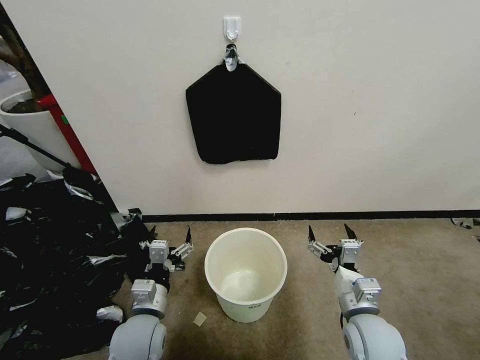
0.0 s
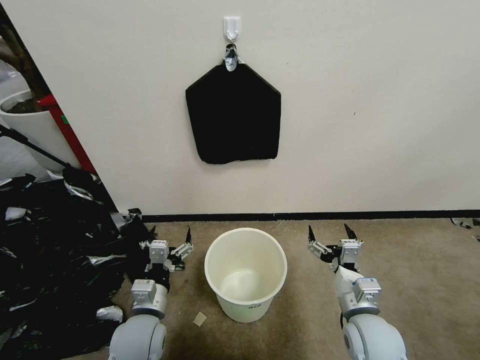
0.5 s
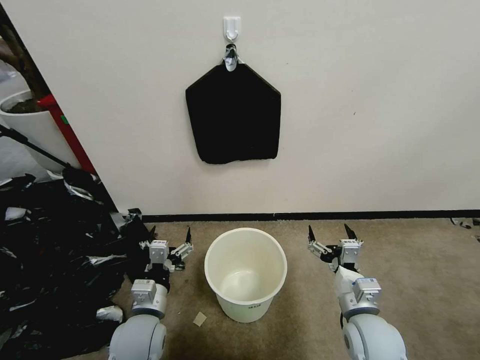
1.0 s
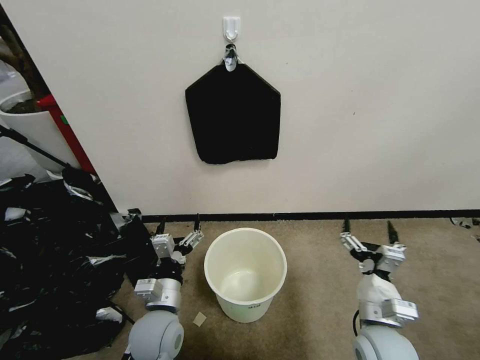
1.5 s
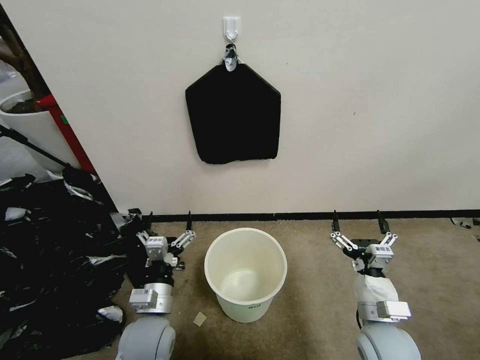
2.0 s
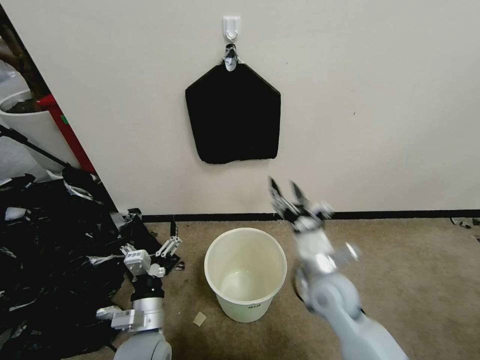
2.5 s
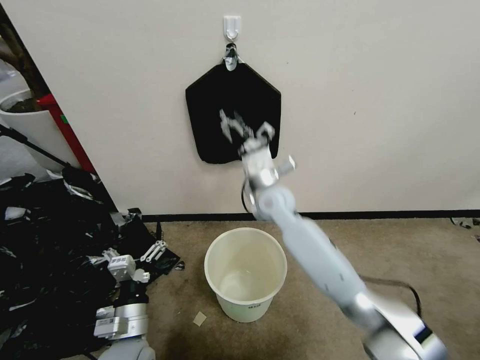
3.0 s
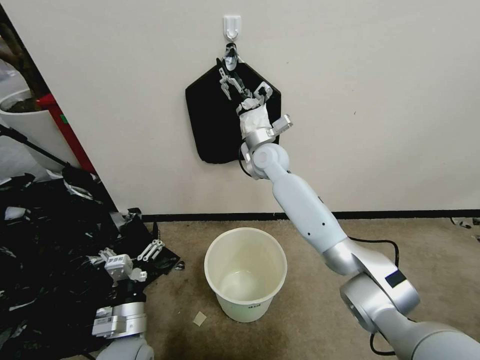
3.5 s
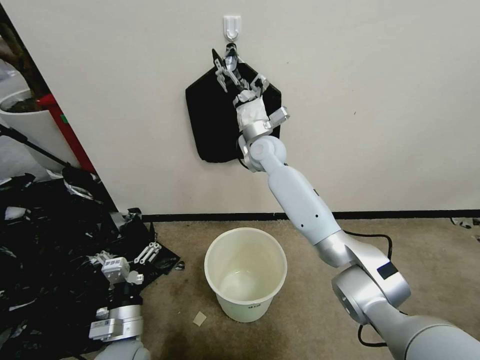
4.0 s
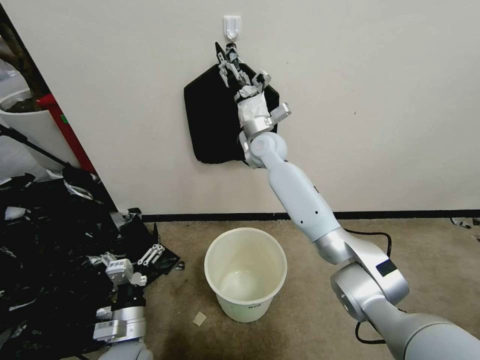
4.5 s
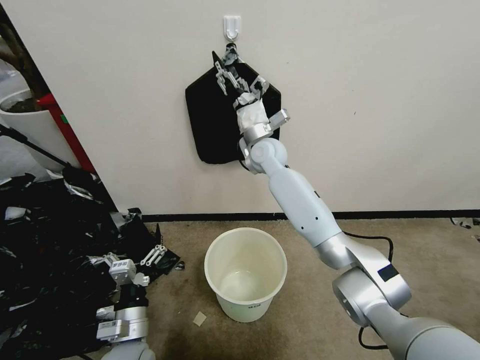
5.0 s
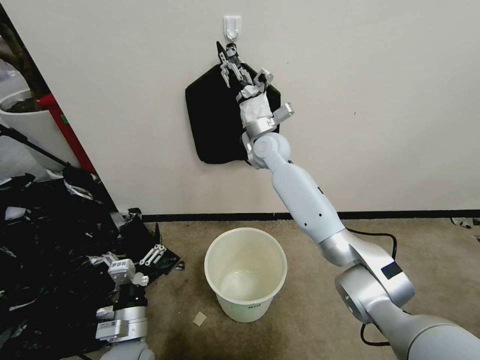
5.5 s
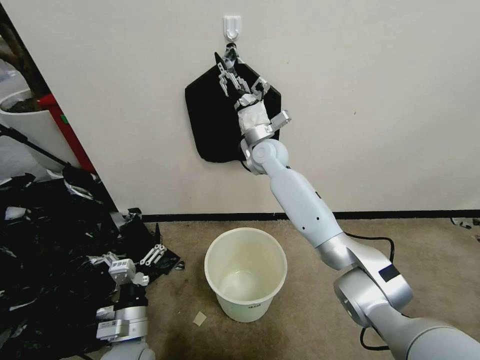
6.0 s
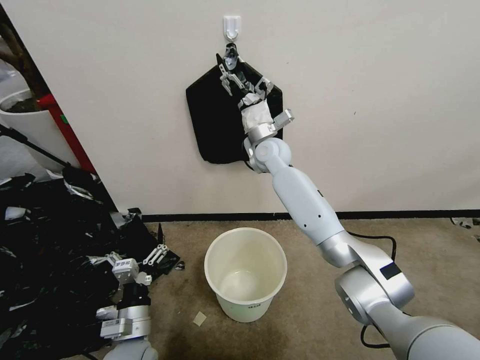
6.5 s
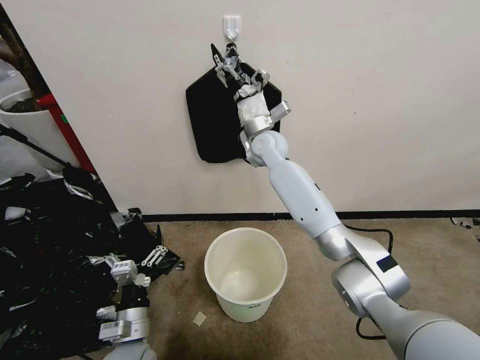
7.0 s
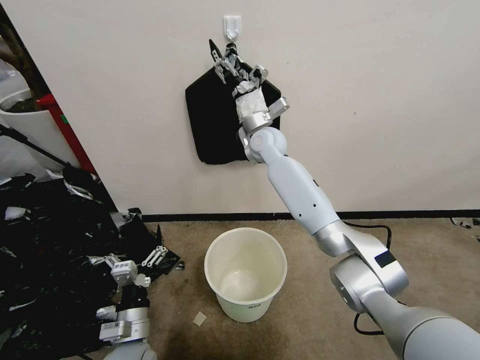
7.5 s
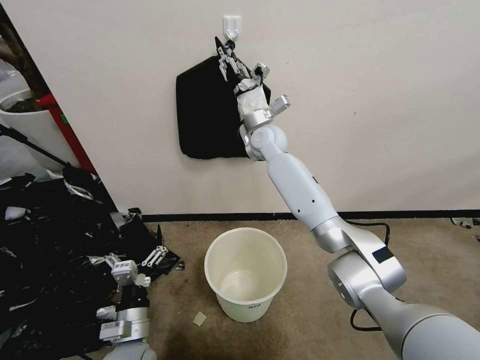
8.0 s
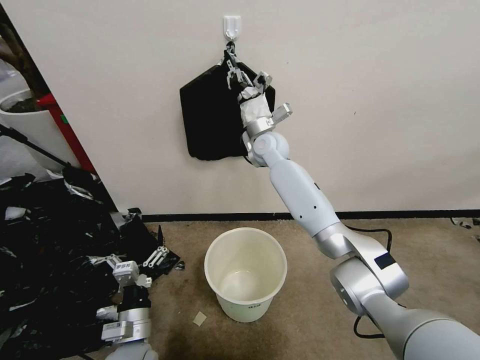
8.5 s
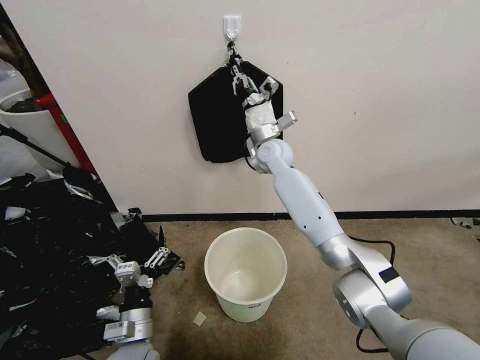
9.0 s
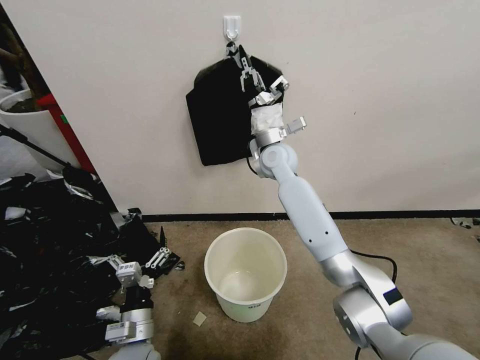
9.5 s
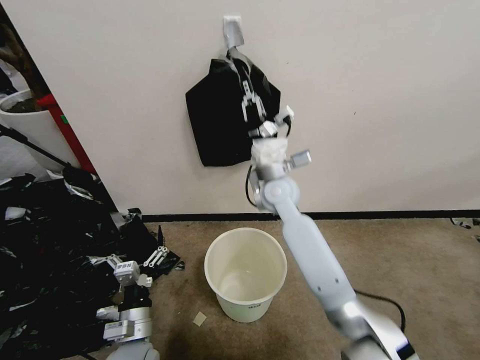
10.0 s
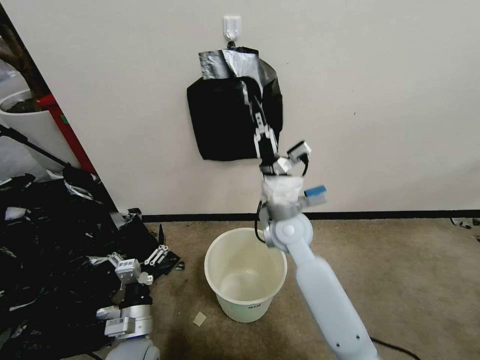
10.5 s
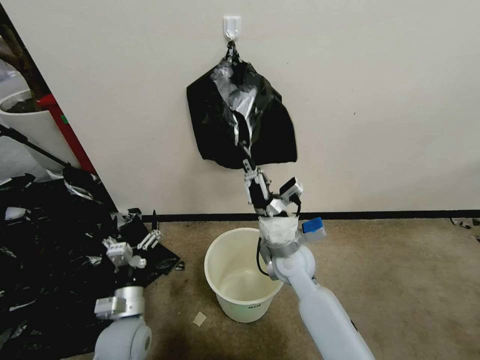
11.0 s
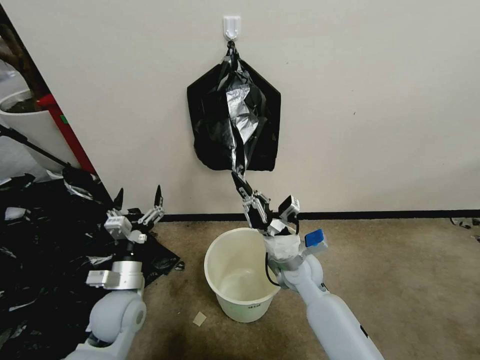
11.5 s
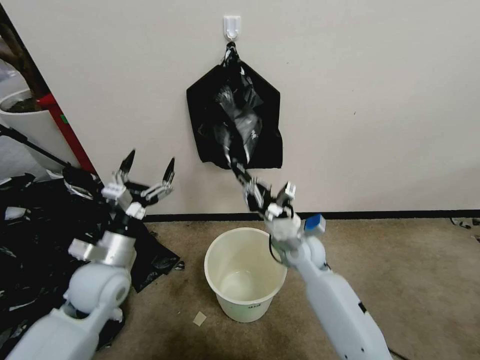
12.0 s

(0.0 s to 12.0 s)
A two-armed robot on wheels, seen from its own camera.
Task of the whole recording: Place a trash bag onto the trash bin.
2.0 s - 4.0 s: The right gripper shifts approximately 50 cm forward, to the left and upward. Meanwhile the left gripper moves some 5 cm.
4.0 s - 6.0 s: The grippers make only small movements.
6.0 s - 8.0 s: The right gripper opens, then closes once more.
8.0 s - 10.0 s: The right gripper heads backward and downward, covering some 15 cm, and closes.
10.0 s - 12.0 s: The left gripper shifts approximately 20 cm upward, forward and to the left. The right gripper travels downward, backward and to the right by about 15 cm.

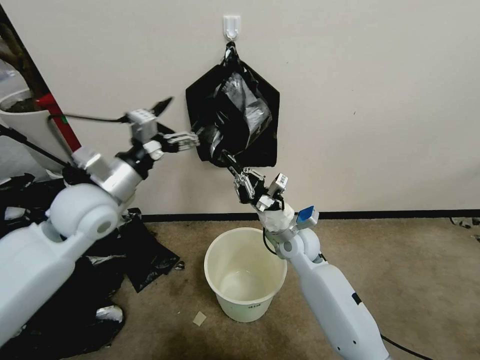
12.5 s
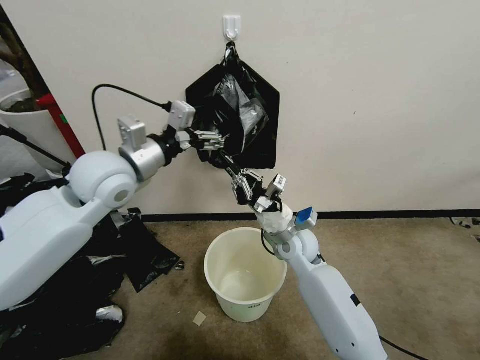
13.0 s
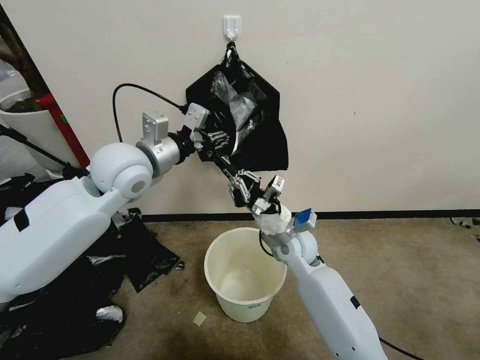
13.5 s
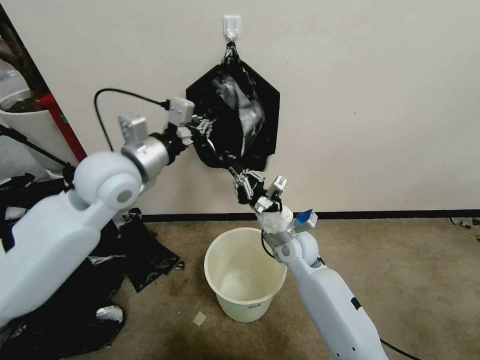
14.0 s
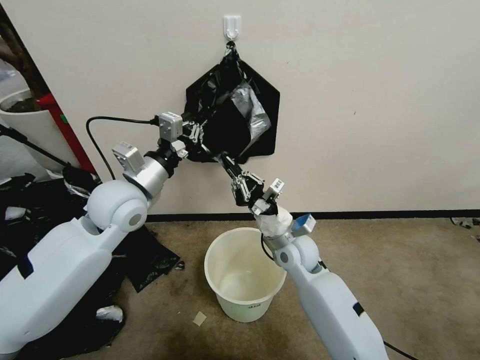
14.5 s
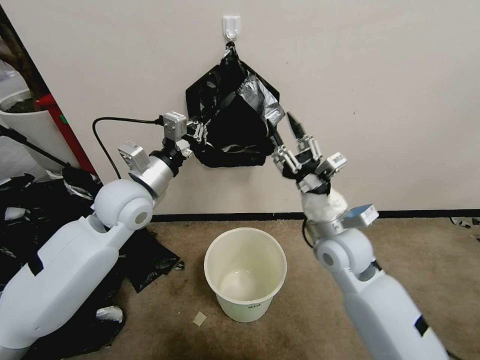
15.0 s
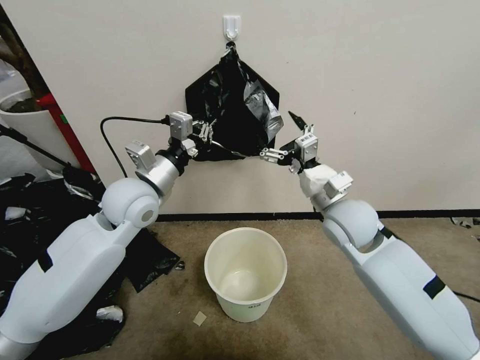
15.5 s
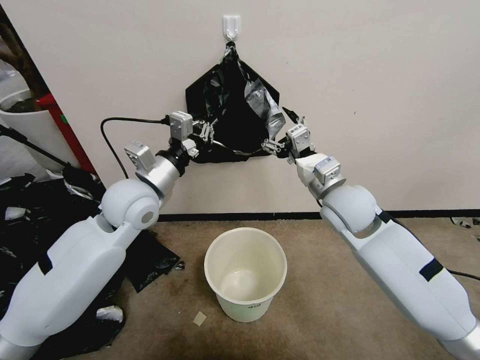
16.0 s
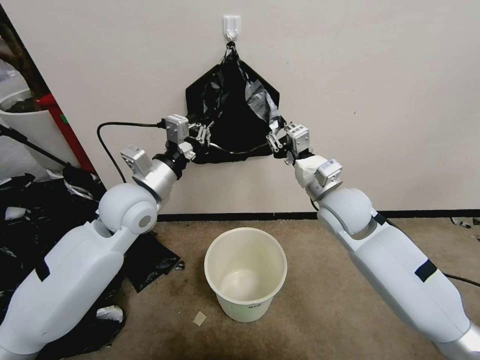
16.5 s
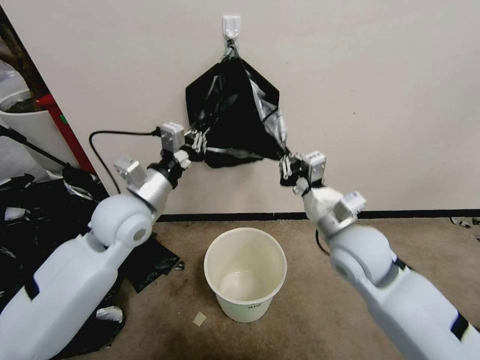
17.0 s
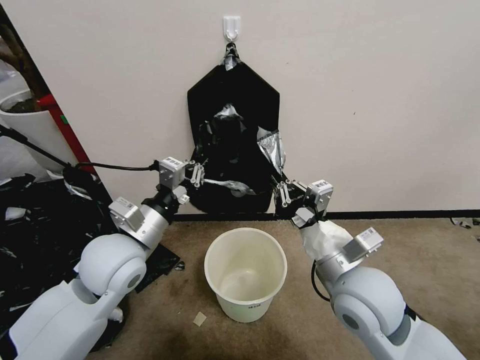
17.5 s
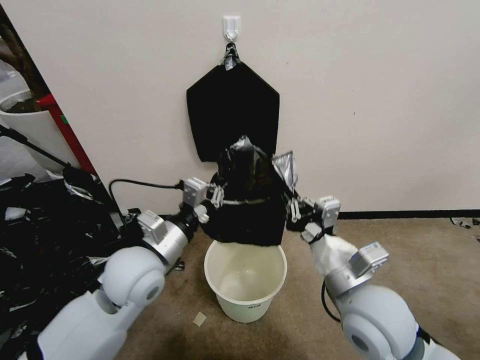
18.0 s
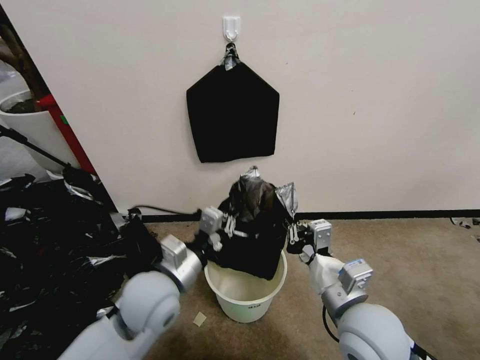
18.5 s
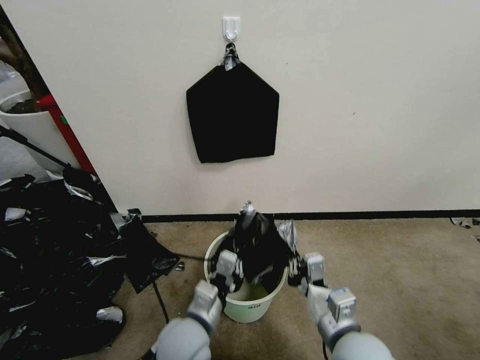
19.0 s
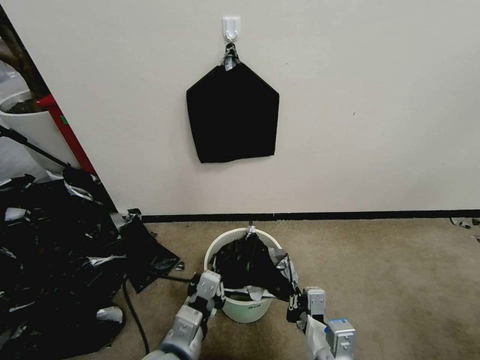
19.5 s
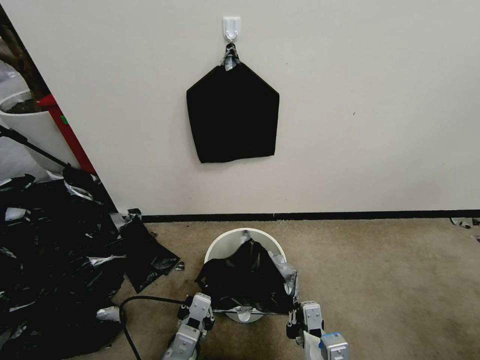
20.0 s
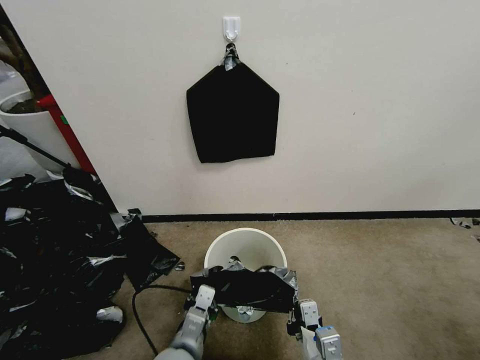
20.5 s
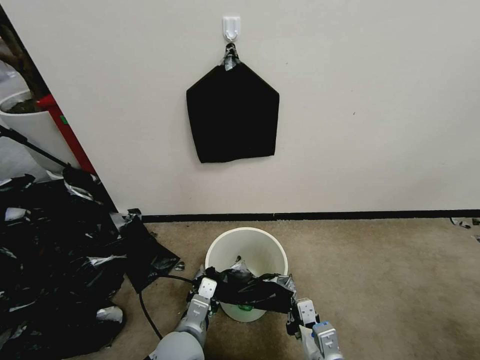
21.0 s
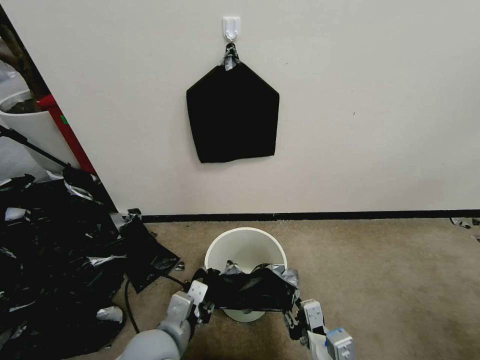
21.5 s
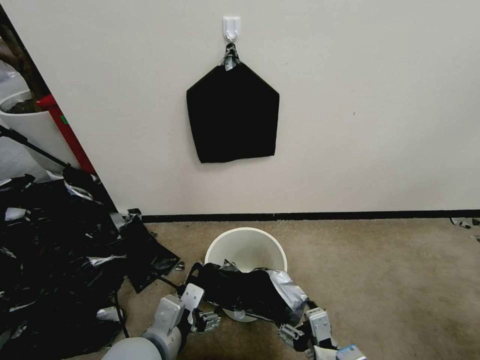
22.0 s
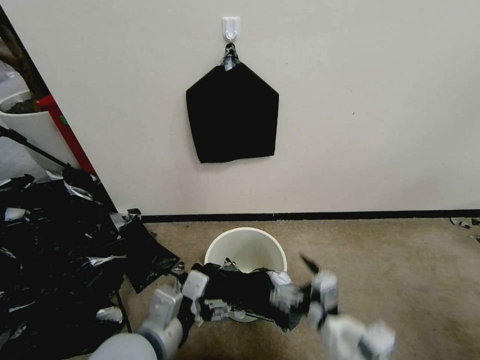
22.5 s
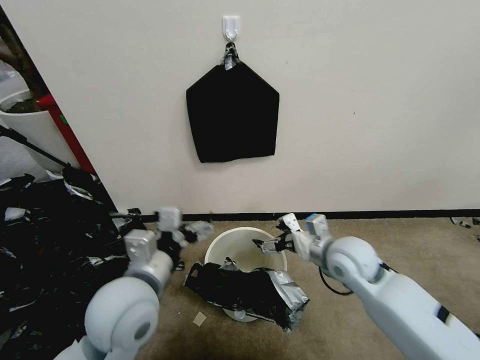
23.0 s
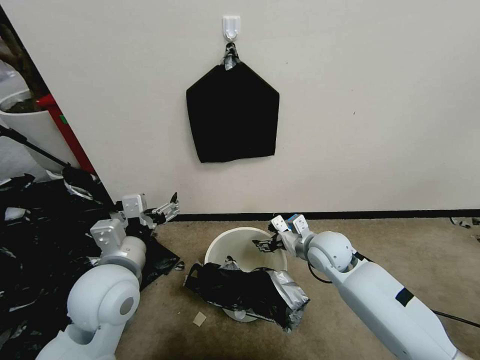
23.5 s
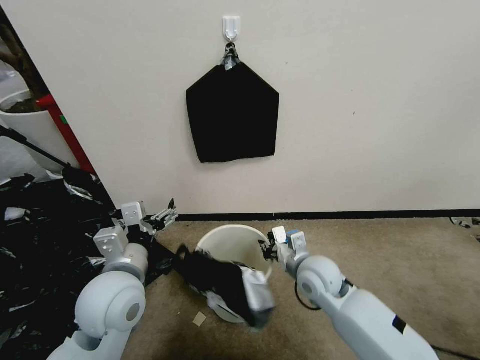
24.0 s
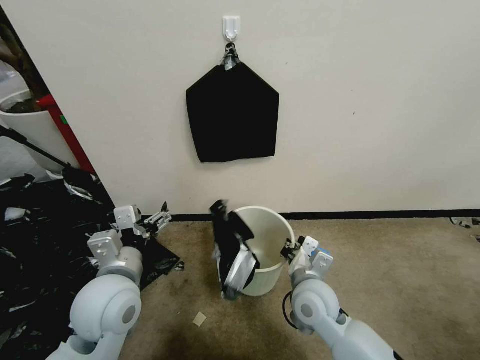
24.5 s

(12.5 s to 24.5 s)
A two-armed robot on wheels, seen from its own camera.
Task of the whole recording: Place a trash bag onto the trash bin.
12.5 s - 14.5 s: The left gripper closes its fingers.
14.5 s - 16.5 s: The right gripper heads upward and to the right, covering roughly 15 cm, and opens, then closes once more.
16.5 s - 18.5 s: The left gripper shifts roughly 15 cm backward and downward; the right gripper is displaced backward by about 20 cm.
18.5 s - 20.5 s: The two grippers go some 15 cm downward and backward.
20.5 s - 22.5 s: Both grippers travel together upward, some 15 cm. The right gripper opens its fingers, while the left gripper opens its fingers.
22.5 s - 24.5 s: The left gripper travels forward and to the left by some 10 cm. Meanwhile the right gripper shifts roughly 20 cm forward and downward, and closes up.

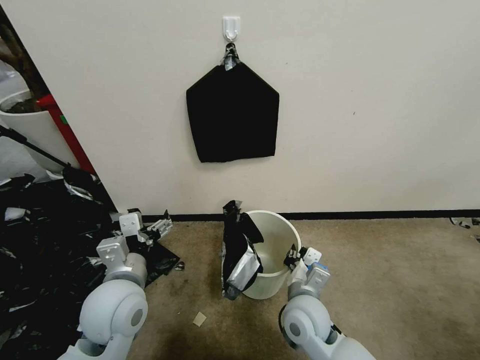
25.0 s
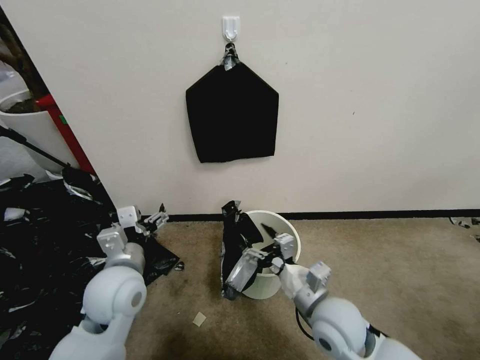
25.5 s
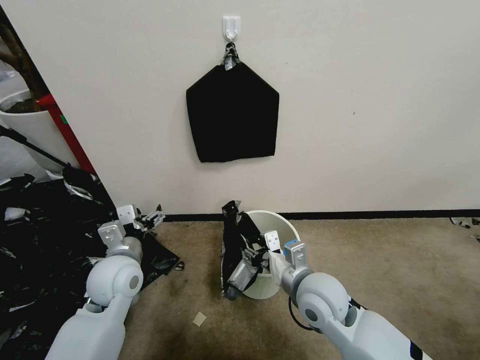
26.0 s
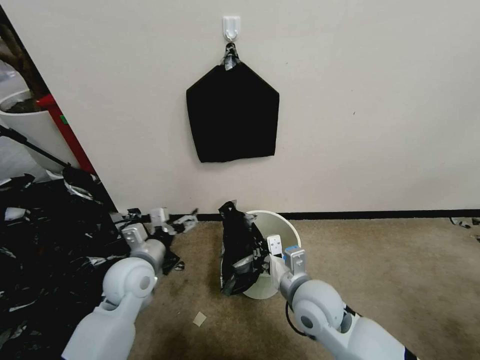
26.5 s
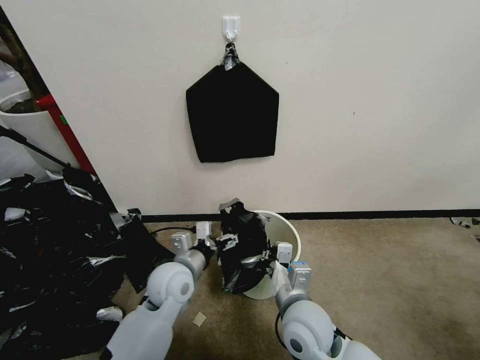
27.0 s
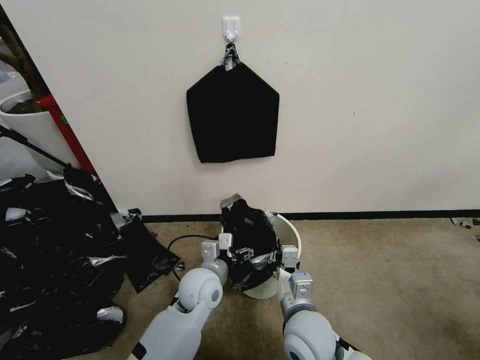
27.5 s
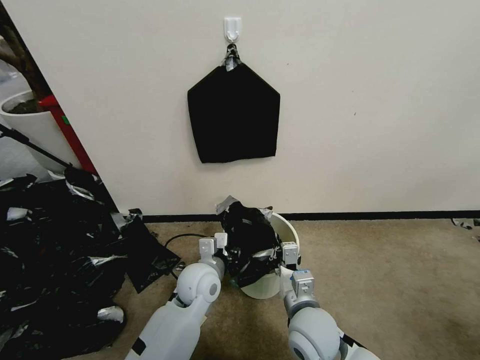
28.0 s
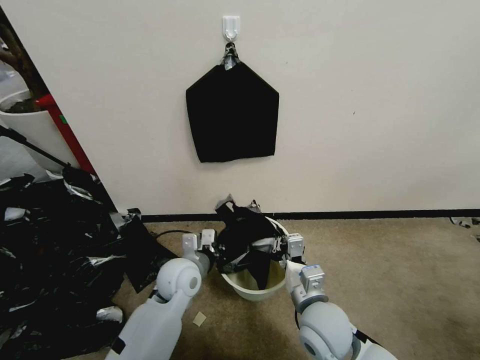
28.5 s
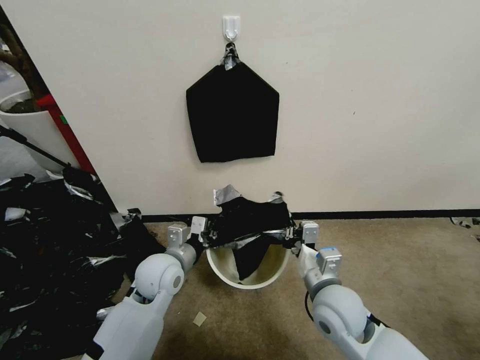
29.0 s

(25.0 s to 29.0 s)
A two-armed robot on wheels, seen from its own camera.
Task of the whole recording: Place a trash bag onto the trash bin.
25.0 s - 27.0 s: The left gripper heads downward, forward and to the right, covering some 15 cm; the right gripper opens and closes again.
27.0 s - 29.0 s: The right gripper goes approximately 5 cm to the right. The left gripper travels to the right and back again, about 5 cm each way, and closes.
